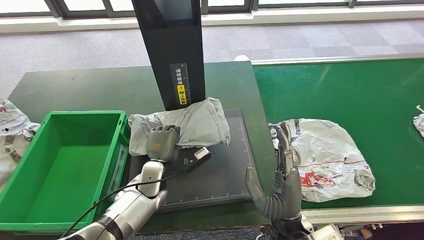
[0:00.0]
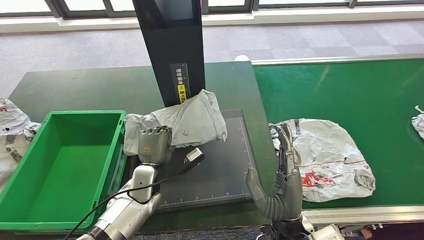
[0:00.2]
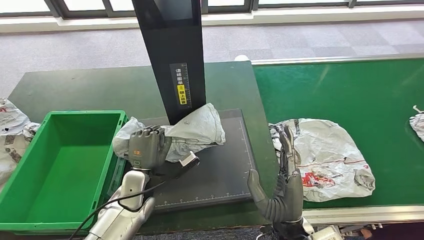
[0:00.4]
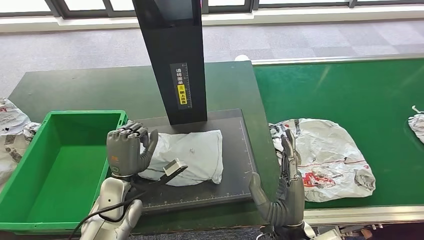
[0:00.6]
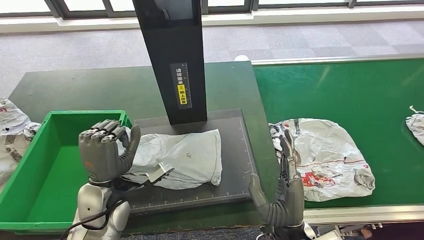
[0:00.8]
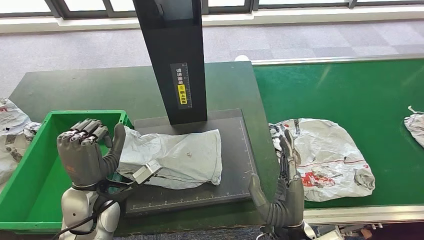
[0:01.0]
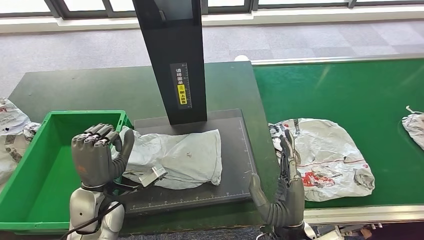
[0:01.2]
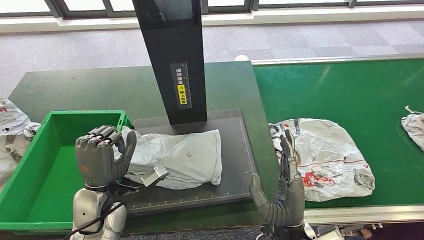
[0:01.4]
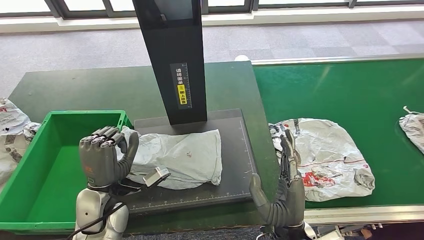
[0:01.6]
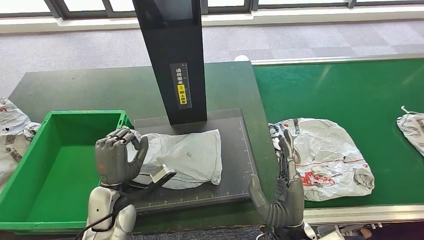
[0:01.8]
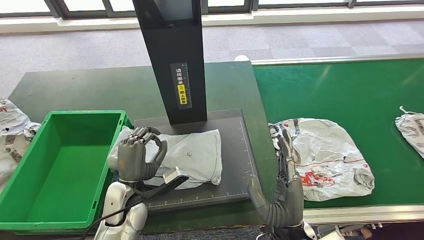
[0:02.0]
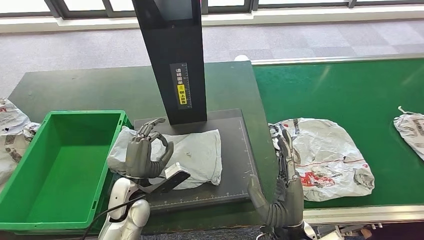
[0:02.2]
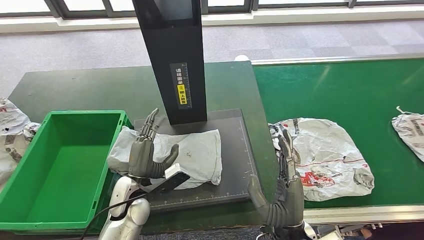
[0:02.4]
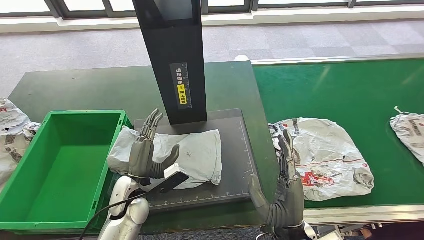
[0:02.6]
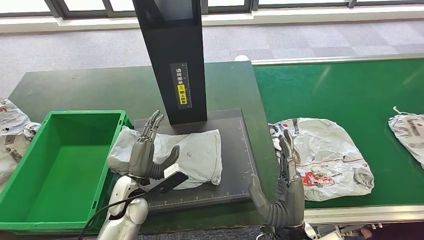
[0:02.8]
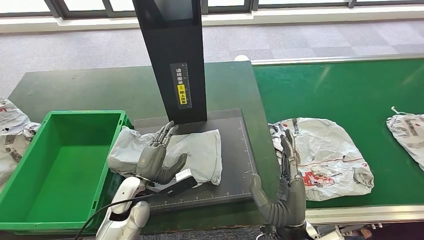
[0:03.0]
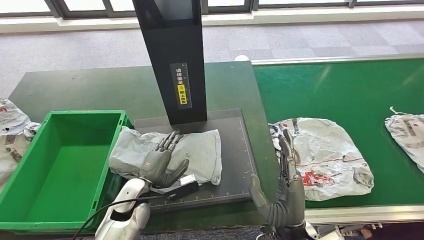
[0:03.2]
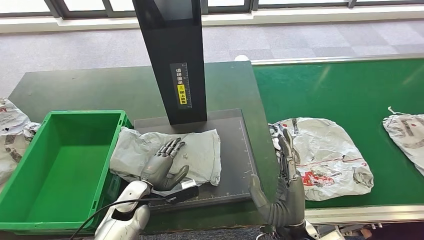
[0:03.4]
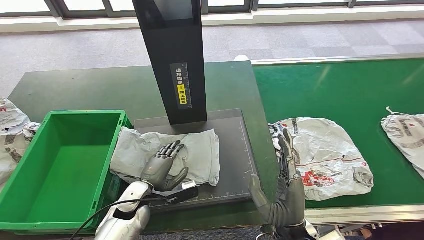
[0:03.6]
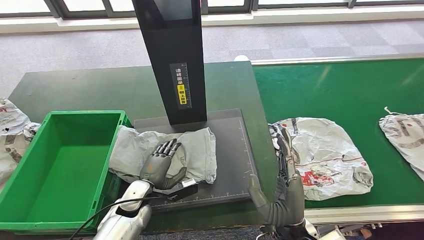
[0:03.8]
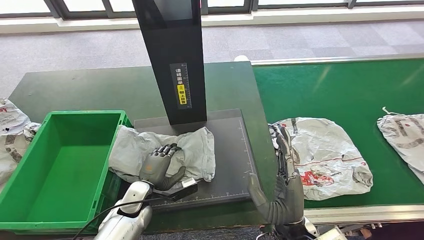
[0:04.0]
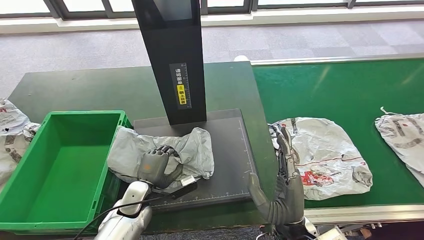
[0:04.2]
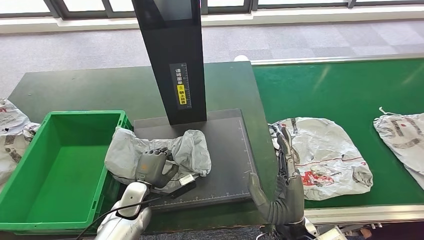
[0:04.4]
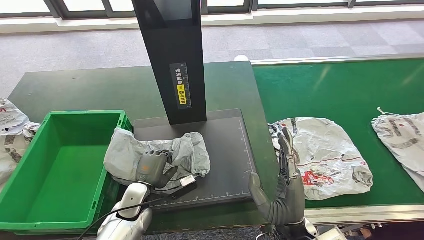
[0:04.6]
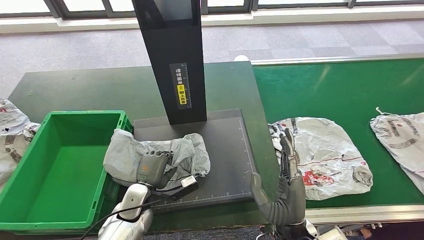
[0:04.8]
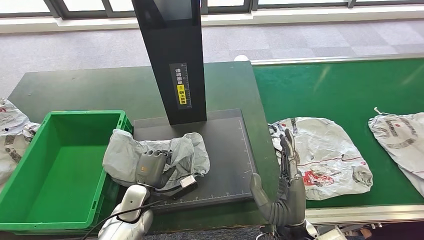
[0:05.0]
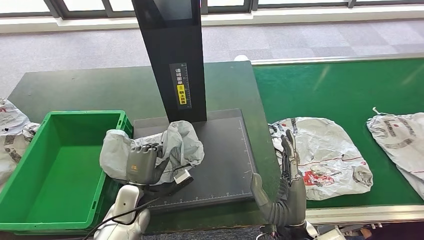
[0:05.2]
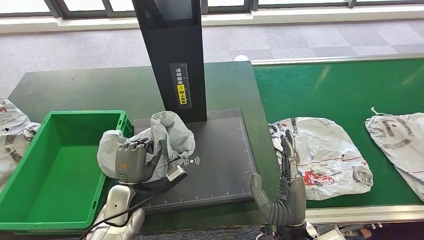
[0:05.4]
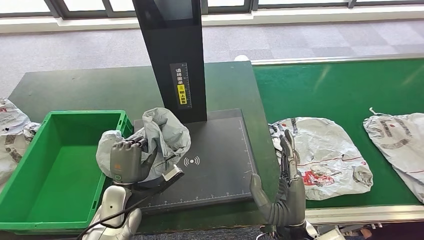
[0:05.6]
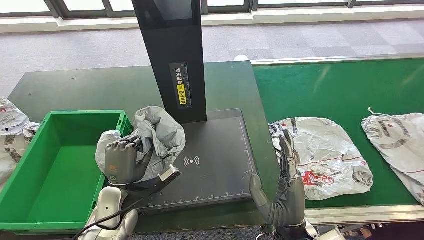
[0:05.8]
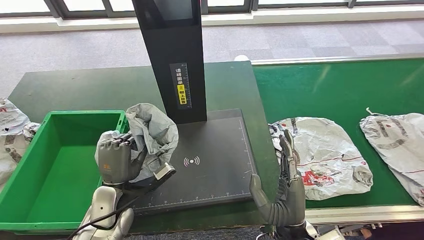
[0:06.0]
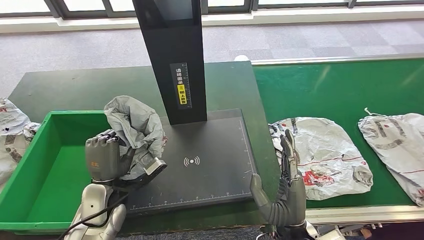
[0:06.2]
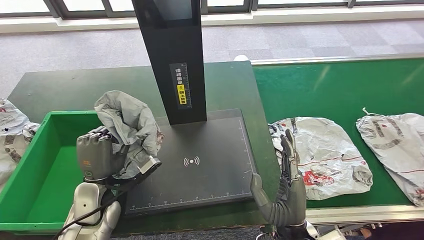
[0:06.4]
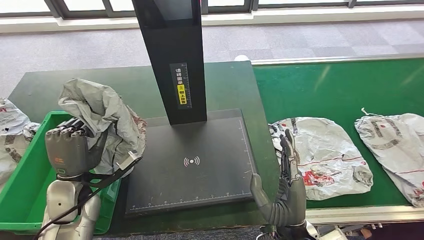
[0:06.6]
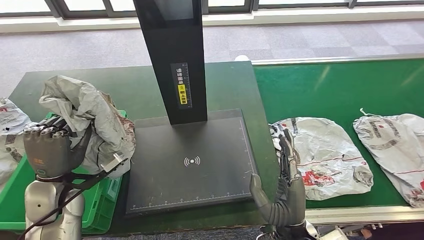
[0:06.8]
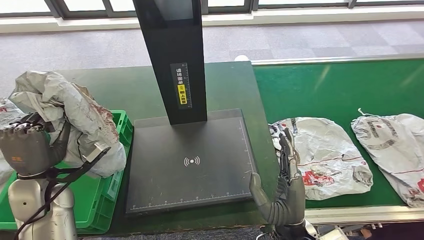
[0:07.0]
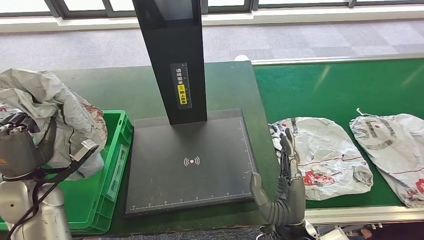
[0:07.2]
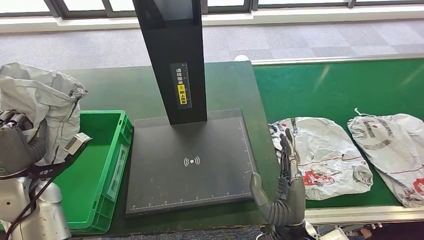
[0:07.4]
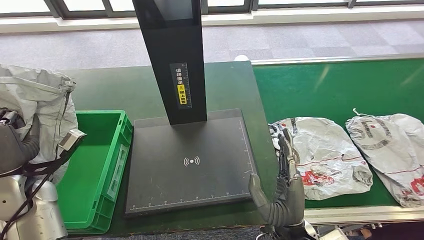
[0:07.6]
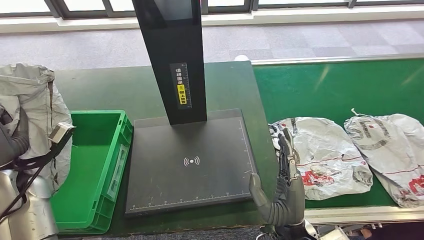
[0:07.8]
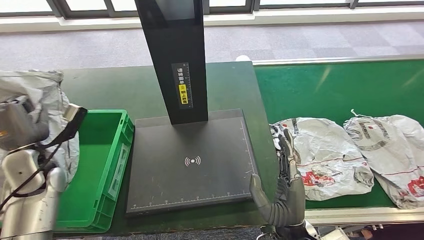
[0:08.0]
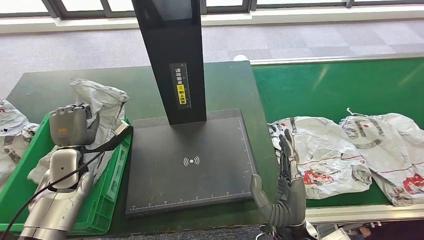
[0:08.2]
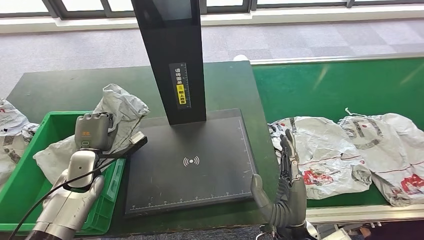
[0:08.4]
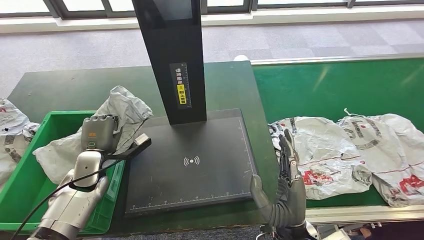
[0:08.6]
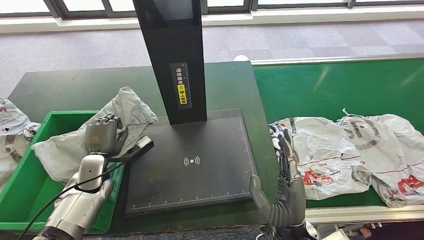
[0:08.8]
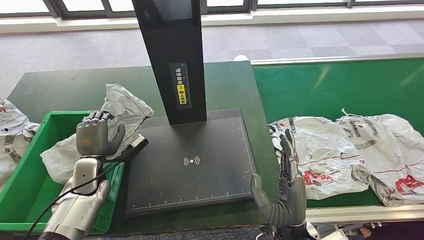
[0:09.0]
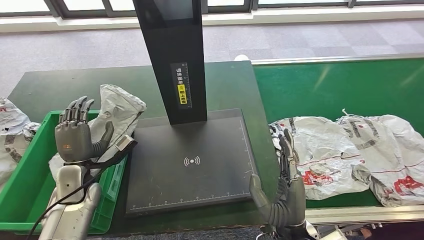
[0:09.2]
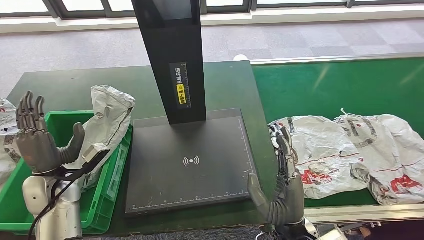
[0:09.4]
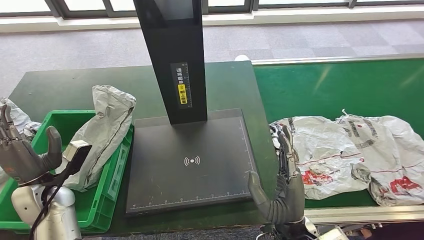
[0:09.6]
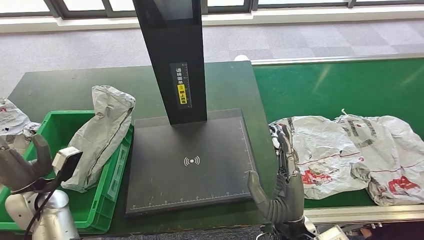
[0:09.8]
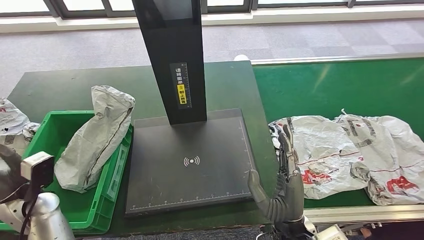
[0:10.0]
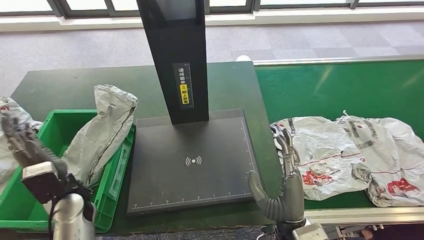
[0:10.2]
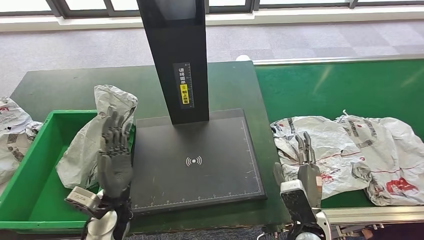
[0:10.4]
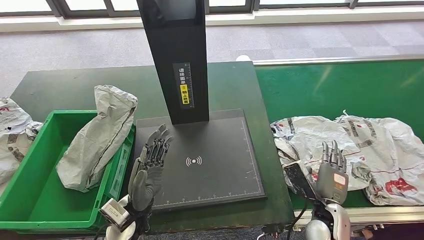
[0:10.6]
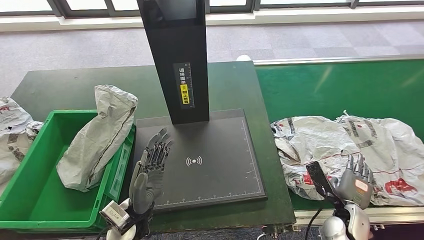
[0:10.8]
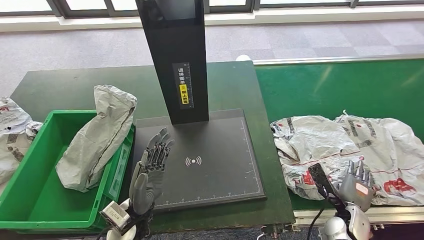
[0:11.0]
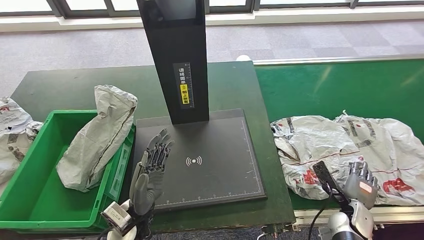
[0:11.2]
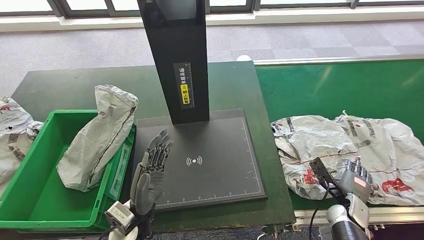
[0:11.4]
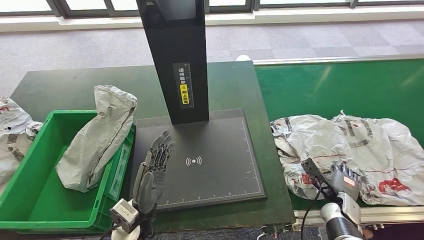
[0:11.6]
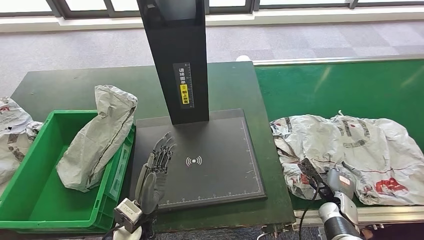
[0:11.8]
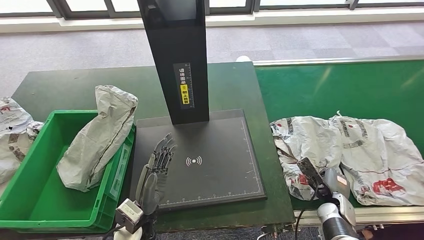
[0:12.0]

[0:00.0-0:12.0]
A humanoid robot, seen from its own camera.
Step, 0:04.2 to 0:06.4: Pick up the parcel from the inbound machine.
Step, 0:06.6 to 0:11.0: Put the parcel inside the courier box.
0:00.0 to 0:01.6: The left hand shifts roughly 15 cm backward, upward and to the left.
0:01.6 to 0:03.0: The left hand goes about 5 cm downward.
0:03.0 to 0:04.4: The left hand shifts roughly 5 cm downward.
0:04.4 to 0:06.0: The left hand travels upward by some 10 cm.
0:06.0 to 0:07.6: The left hand moves to the left and upward, some 20 cm.
0:10.4 to 0:12.0: The right hand travels to the right, downward and forward by approximately 20 cm. Meanwhile the left hand moves to the right, about 5 cm.

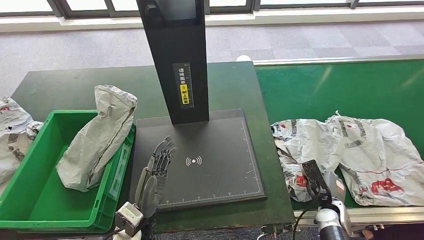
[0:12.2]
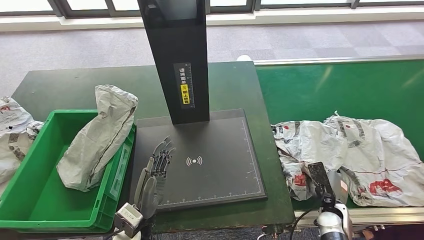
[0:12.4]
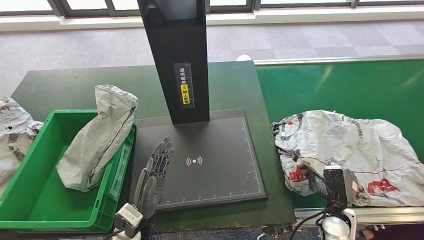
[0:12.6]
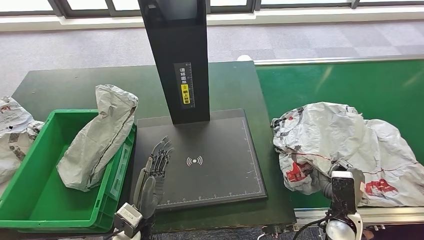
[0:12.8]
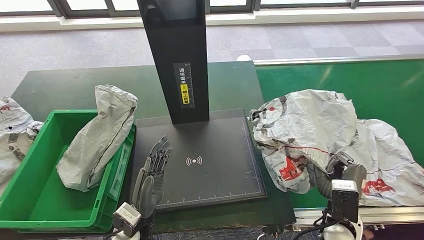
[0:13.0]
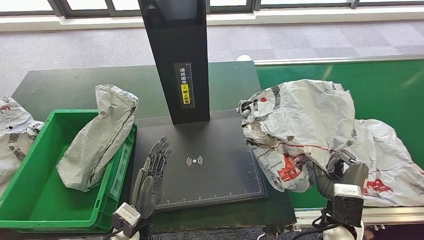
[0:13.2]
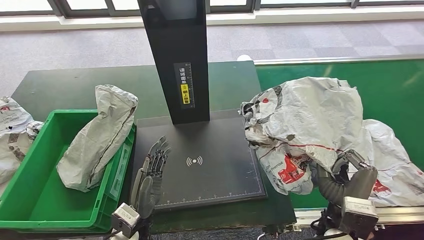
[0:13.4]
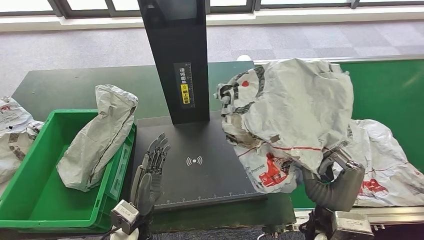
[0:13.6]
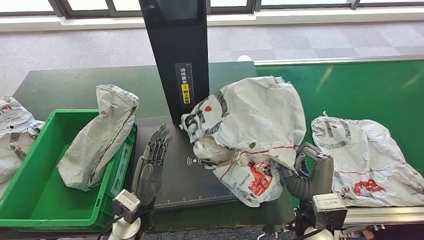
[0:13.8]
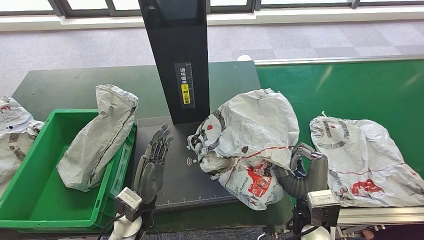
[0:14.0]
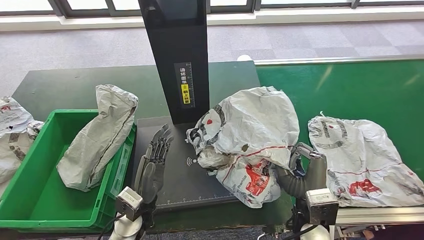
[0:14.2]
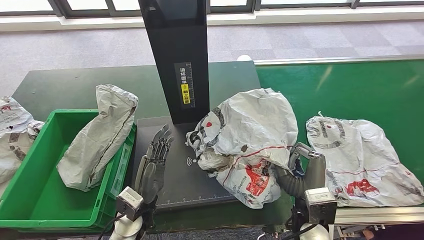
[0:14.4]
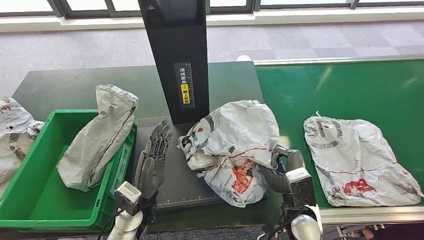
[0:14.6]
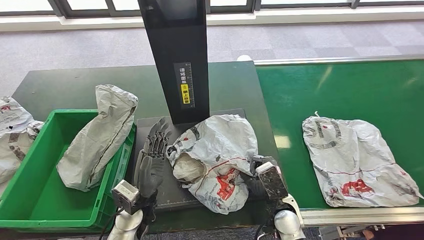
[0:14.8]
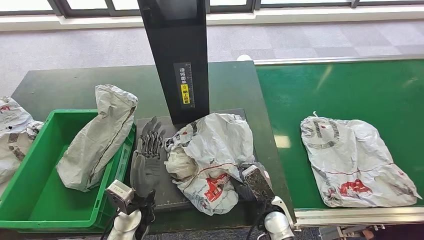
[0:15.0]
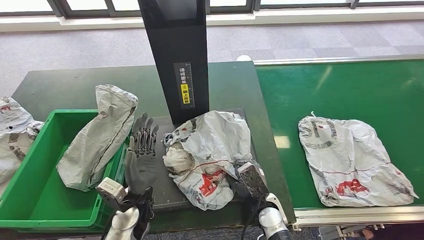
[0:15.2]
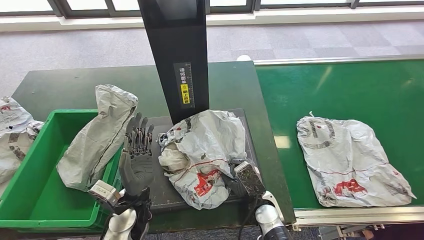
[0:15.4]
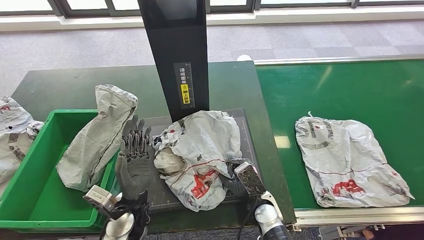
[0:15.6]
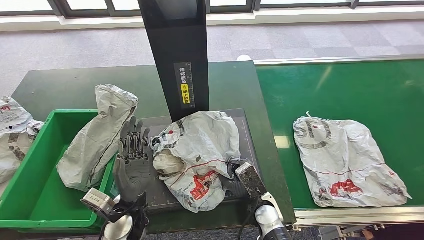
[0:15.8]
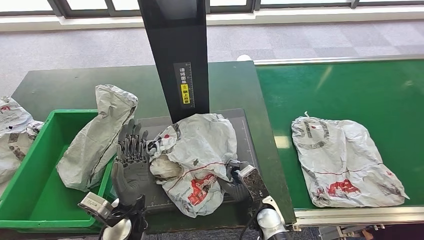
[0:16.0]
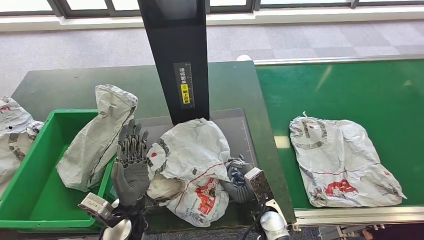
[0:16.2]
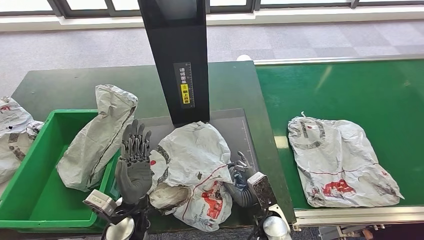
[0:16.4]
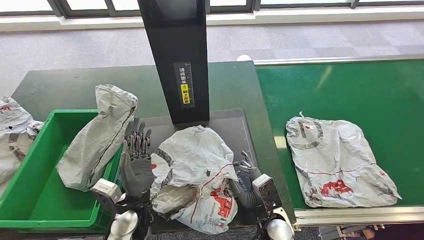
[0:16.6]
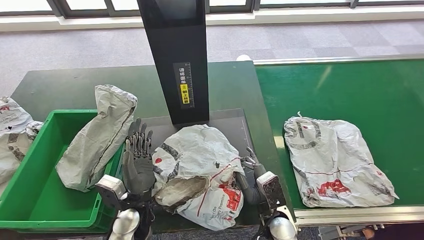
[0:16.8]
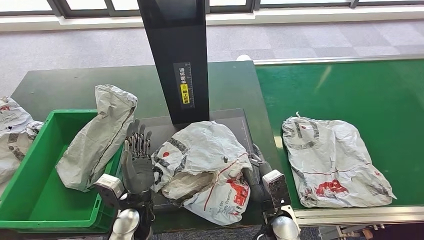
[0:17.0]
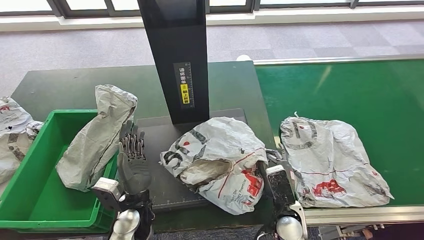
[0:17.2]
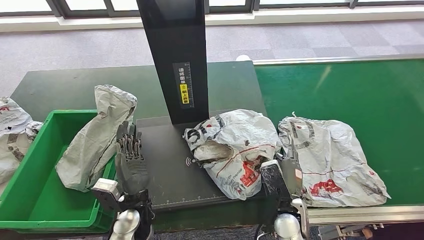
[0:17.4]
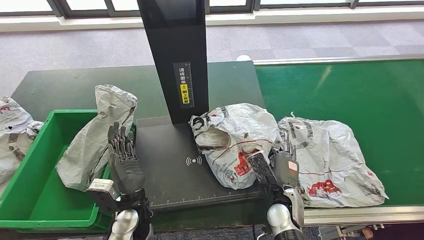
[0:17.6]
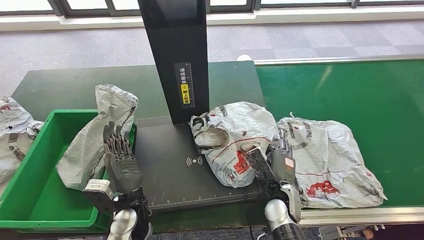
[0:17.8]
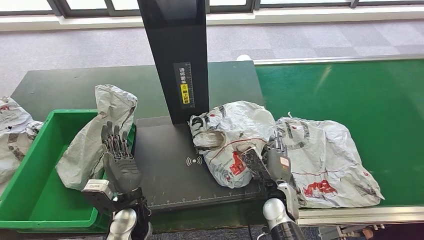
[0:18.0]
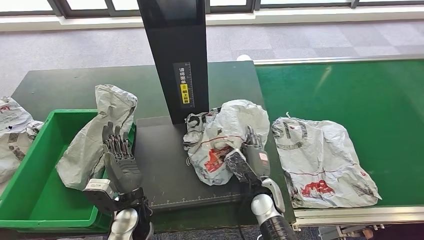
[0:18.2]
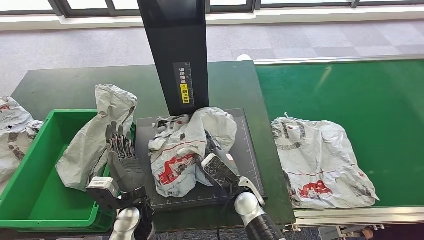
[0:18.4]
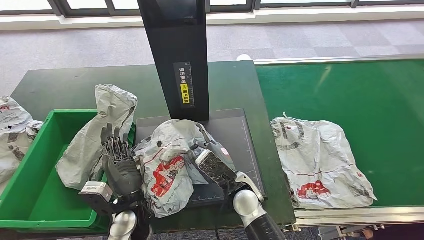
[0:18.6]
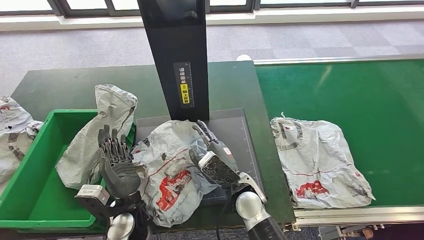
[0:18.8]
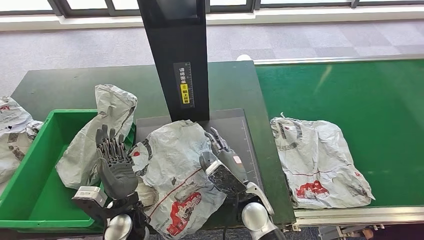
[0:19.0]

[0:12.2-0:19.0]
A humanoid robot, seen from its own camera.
Step, 0:12.2 to 0:14.0: Pick up the parcel from the conveyor belt.
Step, 0:14.2 to 0:17.4: Place the parcel onto the inbound machine.
0:15.0 to 0:16.2: The hands make only small movements.
